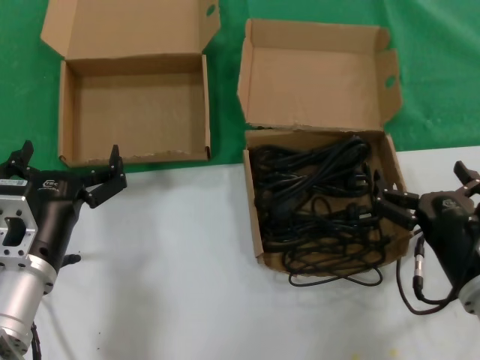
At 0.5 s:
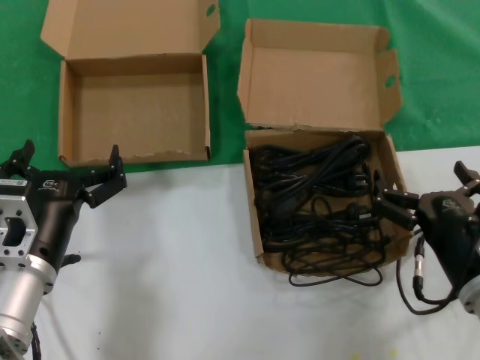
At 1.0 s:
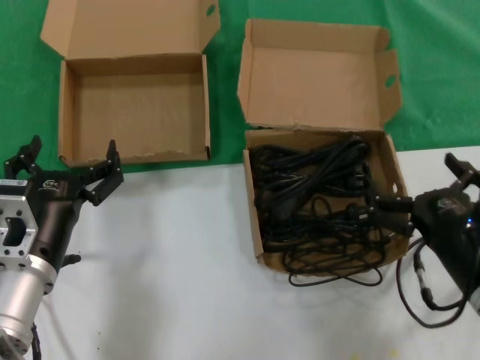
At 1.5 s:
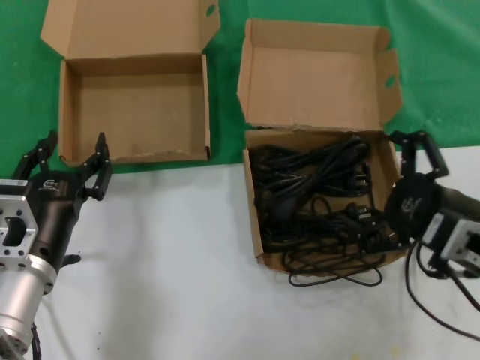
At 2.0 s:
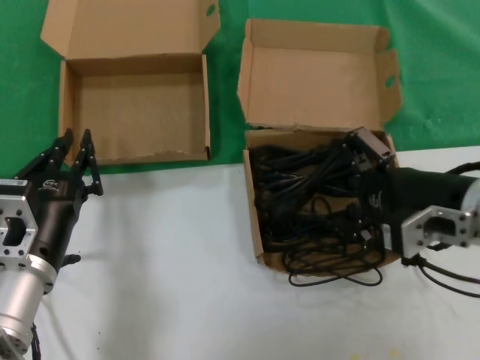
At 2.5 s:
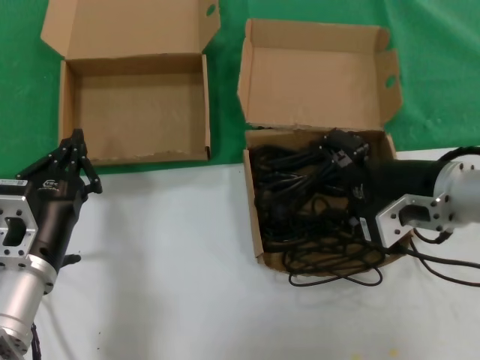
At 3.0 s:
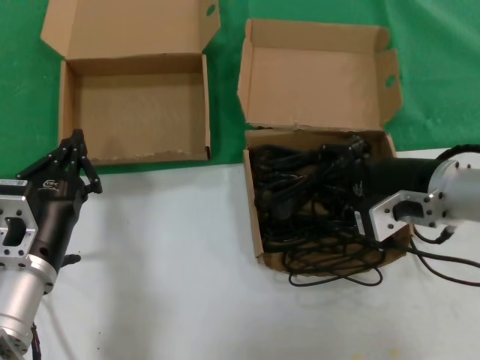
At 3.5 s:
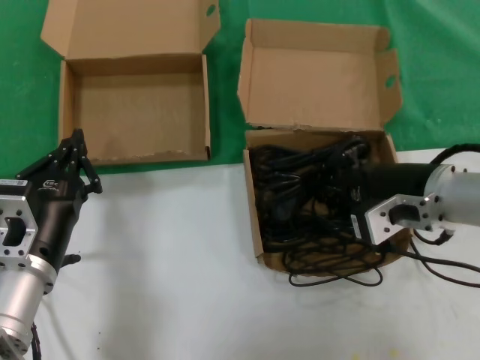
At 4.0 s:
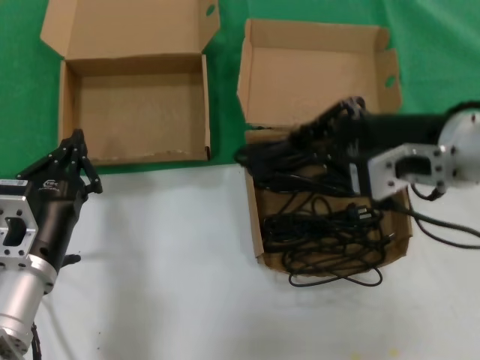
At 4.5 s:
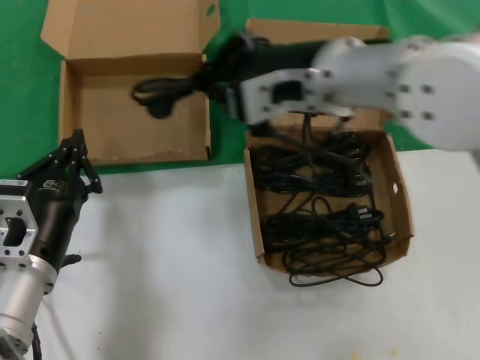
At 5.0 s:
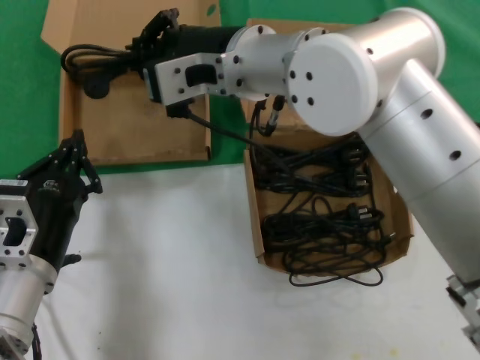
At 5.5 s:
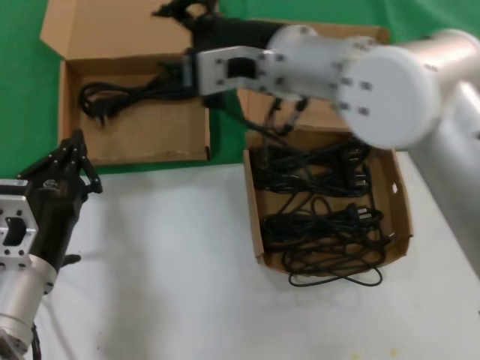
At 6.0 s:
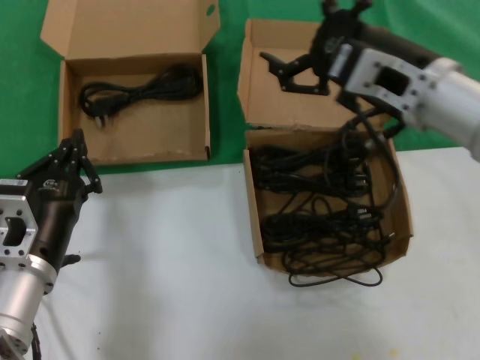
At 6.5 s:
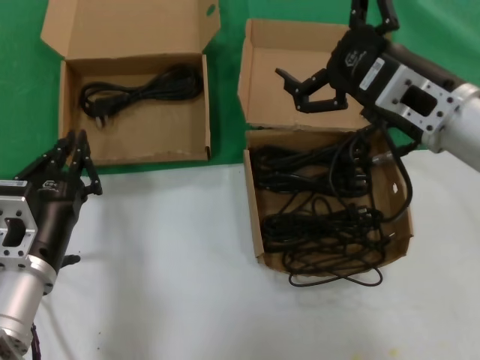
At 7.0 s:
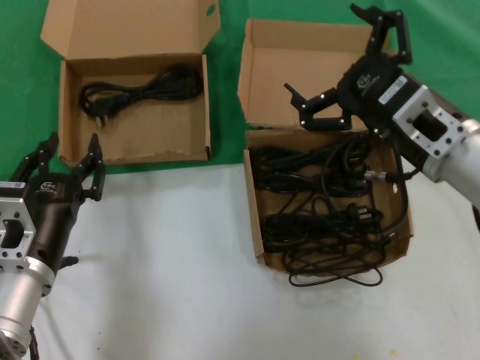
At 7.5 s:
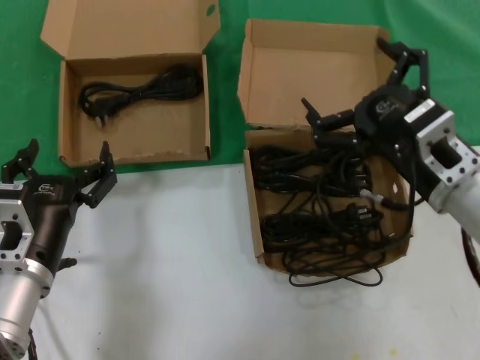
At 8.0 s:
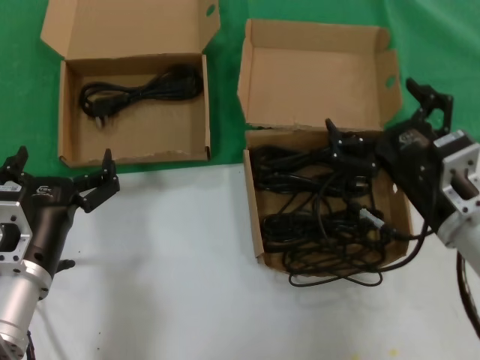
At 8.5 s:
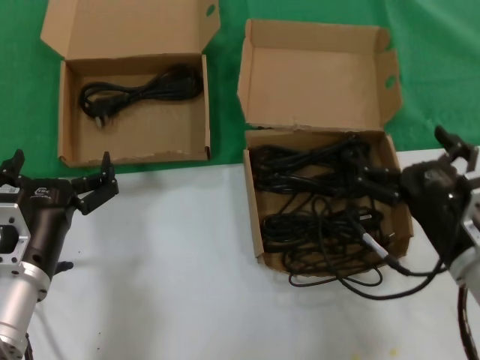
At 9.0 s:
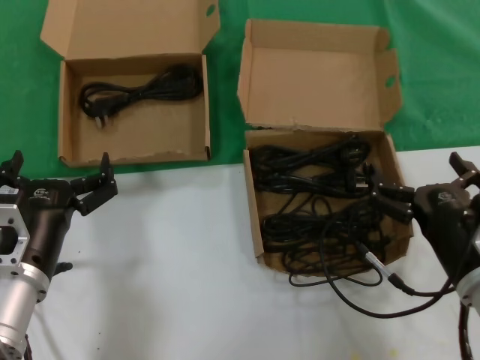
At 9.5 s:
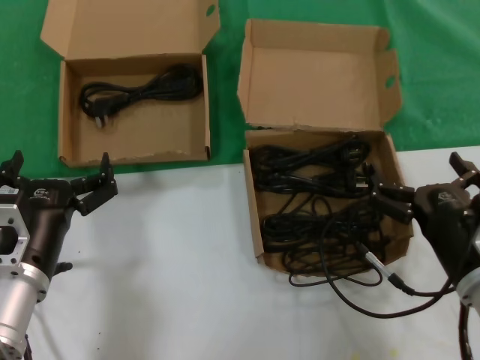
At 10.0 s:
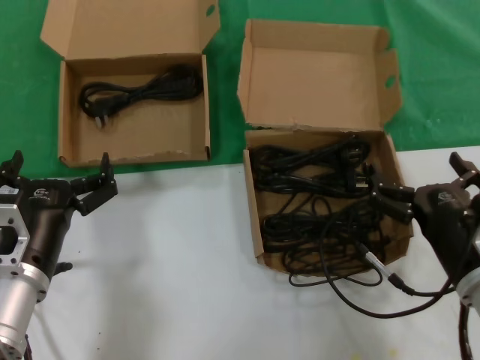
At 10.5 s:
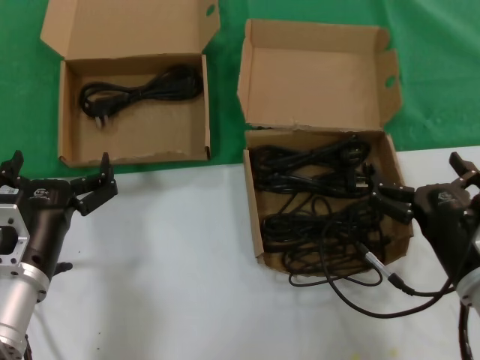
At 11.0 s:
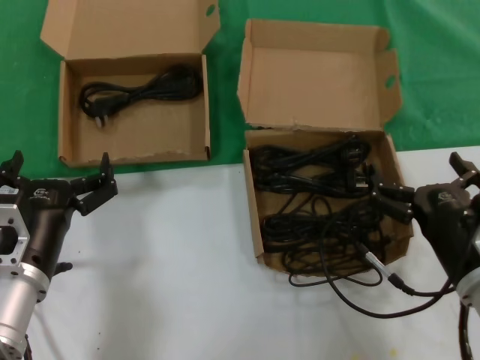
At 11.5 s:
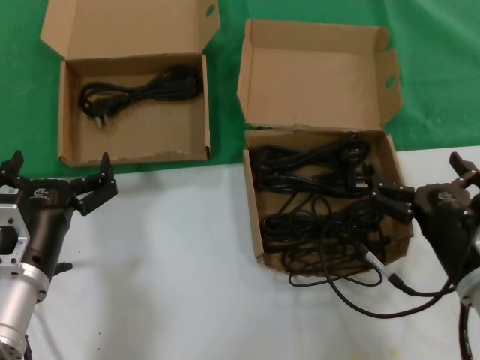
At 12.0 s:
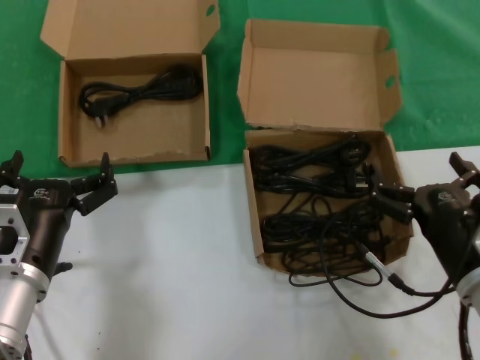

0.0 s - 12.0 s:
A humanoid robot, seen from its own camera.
Task of the whole recording: take the parts from the box containing them and put them into an empty box.
Step, 0.0 s - 3.0 s: Grasp the data cable.
Step, 3.5 s - 5.0 s: Place the data cable in the another box.
0.0 s - 2.0 s: The right hand shifts some 15 cm upward and forward.
2.0 s - 4.0 s: The right hand heads upward and to the left, covering approximately 10 cm.
4.0 s - 6.0 s: The right hand moves about 20 cm to the left and comes back.
6.0 s - 8.0 s: The right hand is displaced downward and backward by approximately 15 cm.
8.0 s - 10.0 s: The right hand heads downward, covering about 5 cm.
10.0 s - 12.0 s: Both hands stay put.

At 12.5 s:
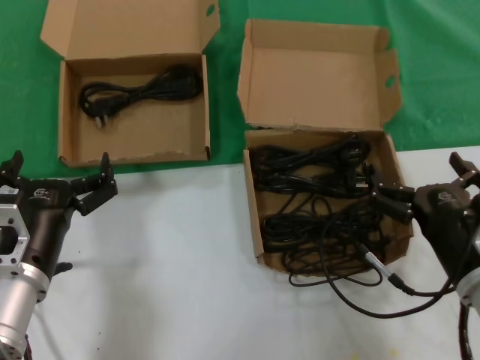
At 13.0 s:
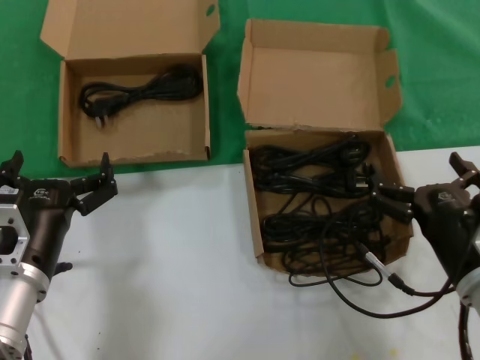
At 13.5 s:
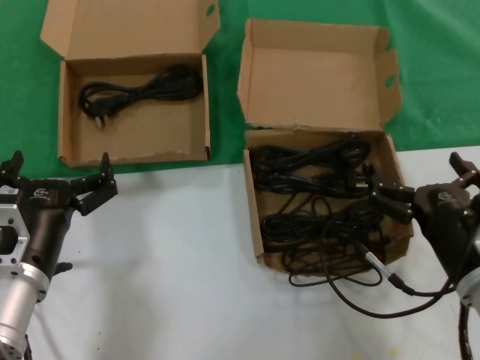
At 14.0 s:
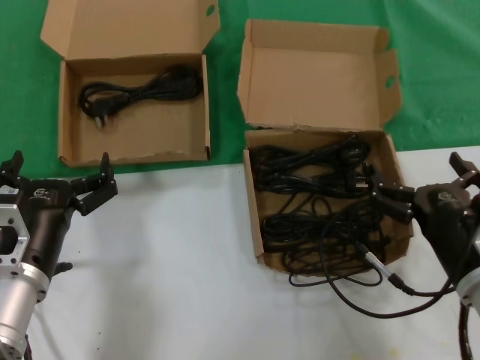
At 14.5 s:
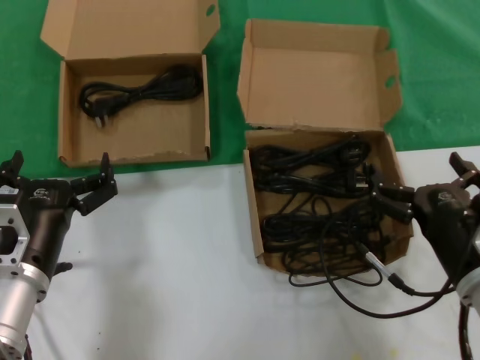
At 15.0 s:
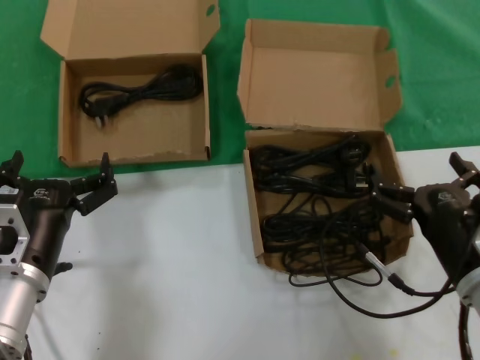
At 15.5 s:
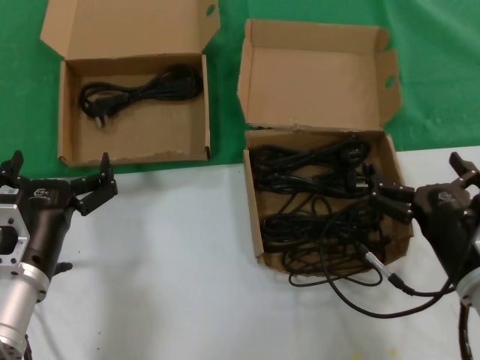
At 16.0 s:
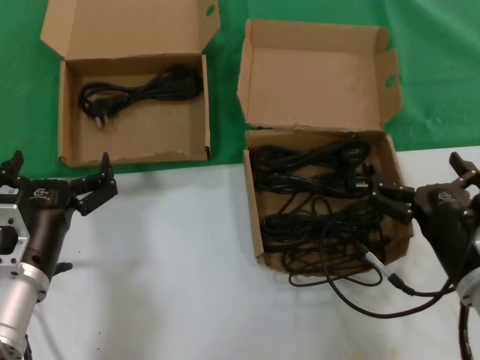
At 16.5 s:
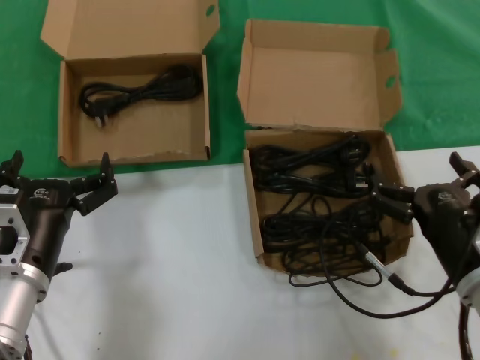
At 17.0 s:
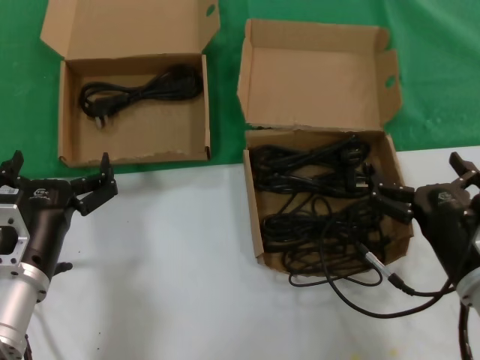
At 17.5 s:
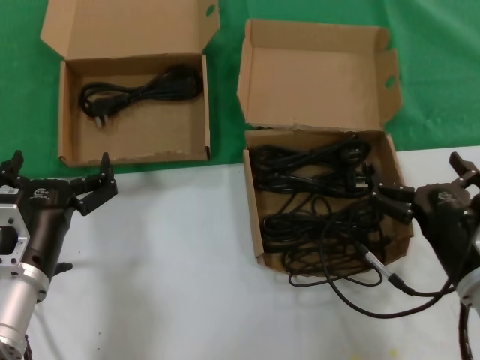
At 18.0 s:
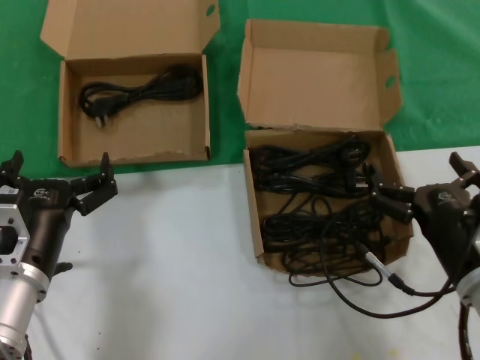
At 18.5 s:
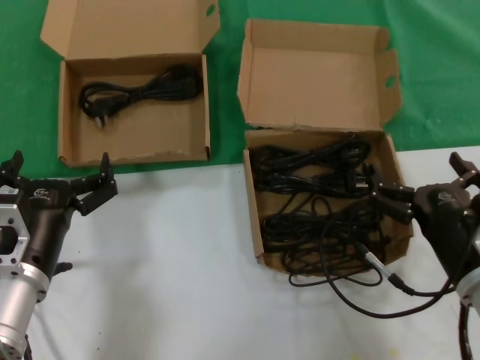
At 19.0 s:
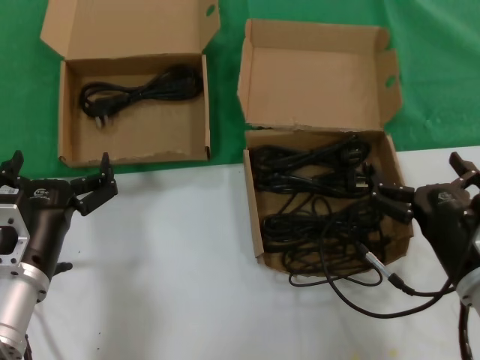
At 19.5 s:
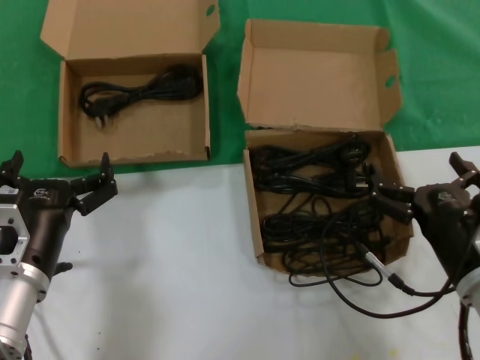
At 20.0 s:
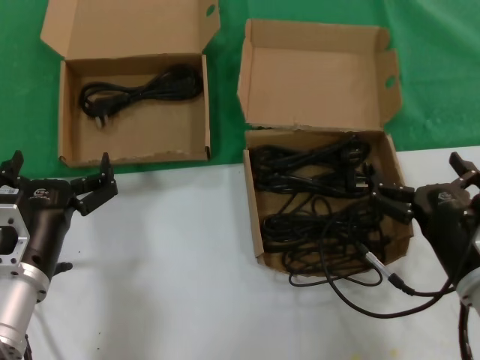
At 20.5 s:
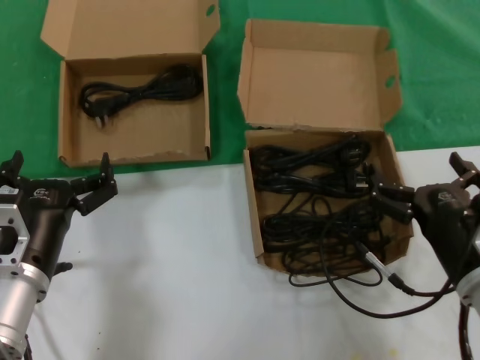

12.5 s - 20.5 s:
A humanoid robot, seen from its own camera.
Task of the whole recording: take the parts from the box containing them and put them into an empty box.
12.5 s - 20.5 s: Both hands stay put.

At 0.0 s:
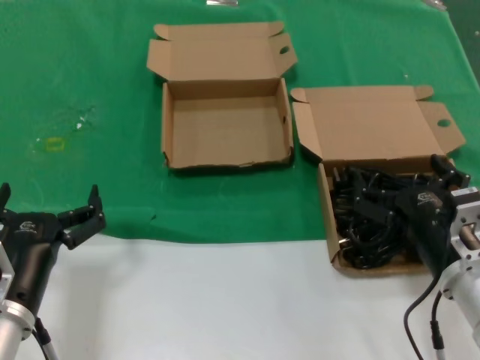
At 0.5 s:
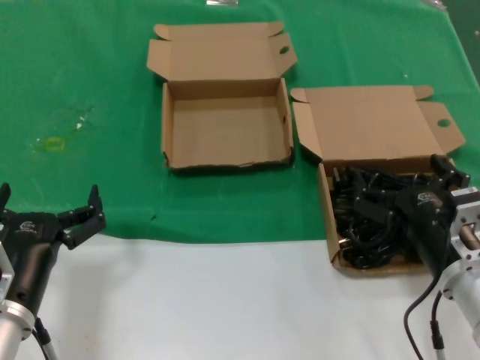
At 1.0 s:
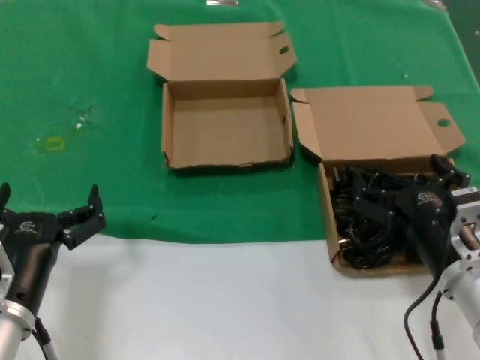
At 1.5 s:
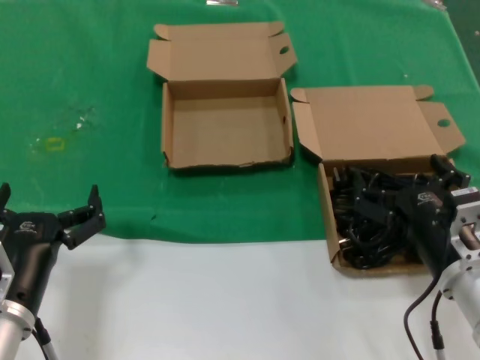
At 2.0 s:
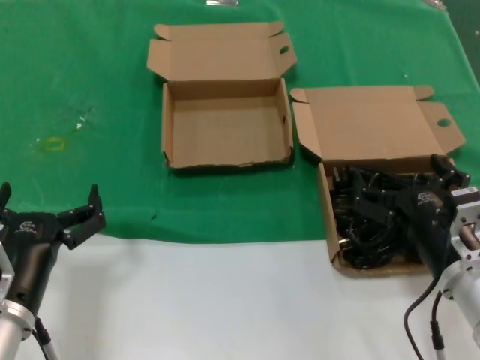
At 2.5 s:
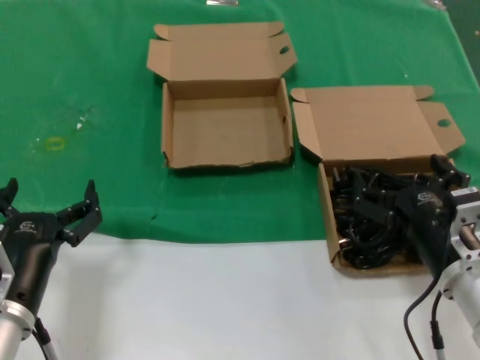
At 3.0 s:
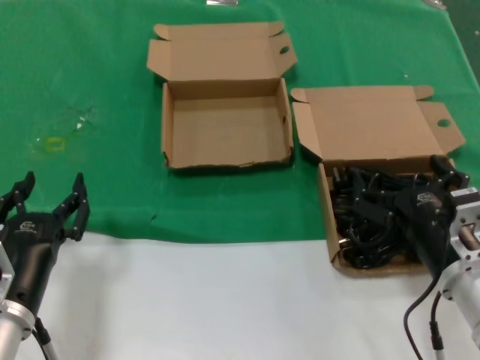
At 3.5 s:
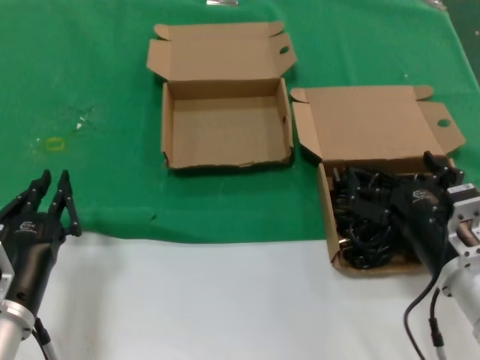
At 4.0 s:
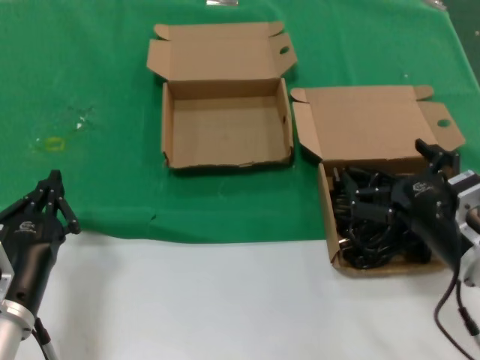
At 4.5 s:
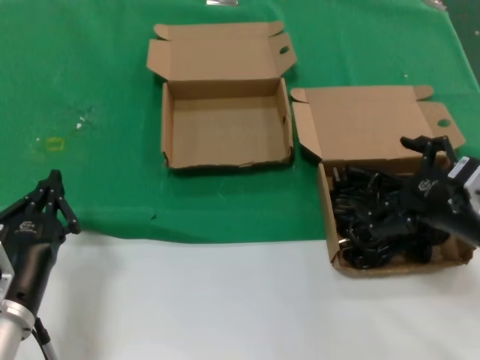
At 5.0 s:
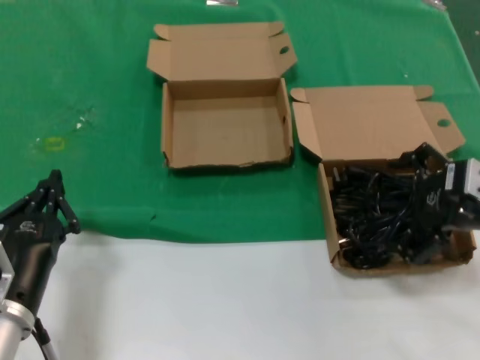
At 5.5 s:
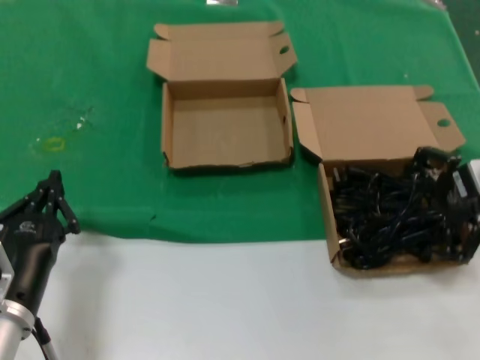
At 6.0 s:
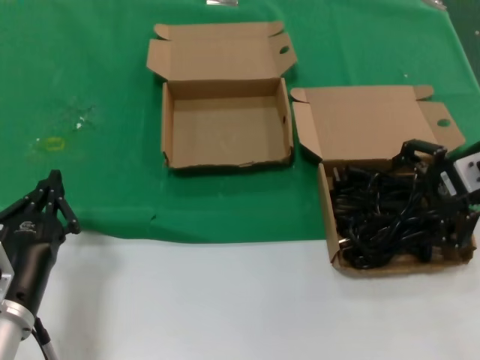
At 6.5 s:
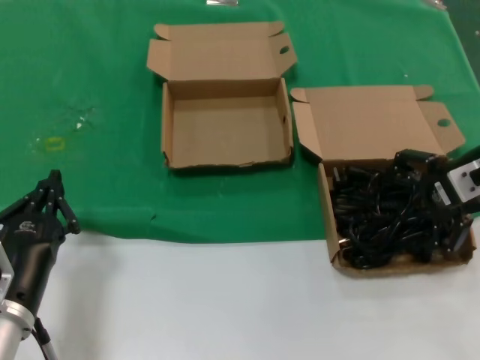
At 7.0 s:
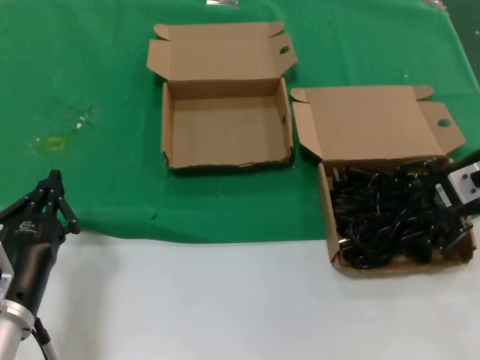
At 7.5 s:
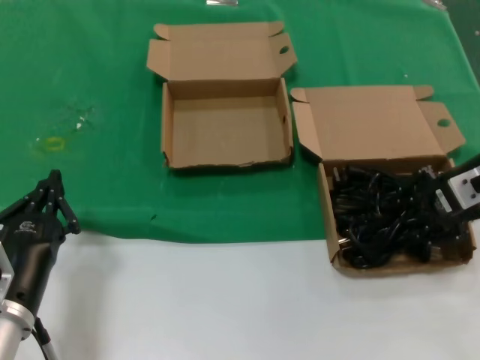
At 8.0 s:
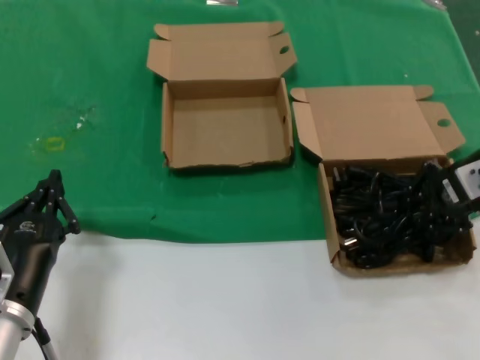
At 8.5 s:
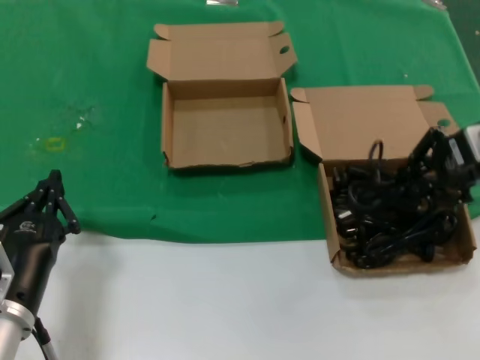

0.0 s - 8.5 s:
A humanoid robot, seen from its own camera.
Task of the whole recording: take the parts from the box containing them and put them into an empty box.
Step, 0.0 s - 7.5 s: Grasp the data cable.
0.0 s - 2.0 s: Both hands stay put.
2.0 s - 4.0 s: The hands make only small movements.
4.0 s - 6.5 s: The right hand moves forward, upward and to the right, some 20 cm.
6.5 s - 8.5 s: The right hand heads upward, covering some 5 cm.
